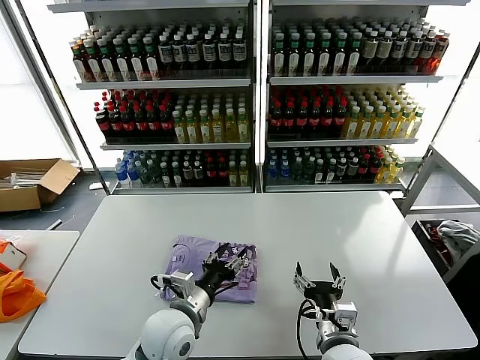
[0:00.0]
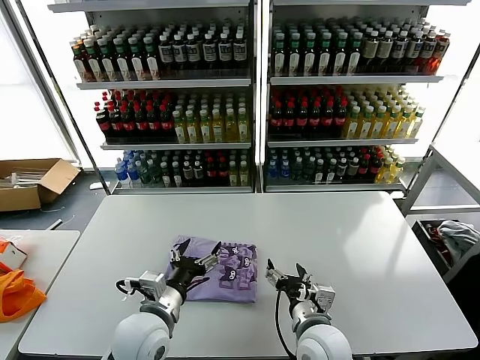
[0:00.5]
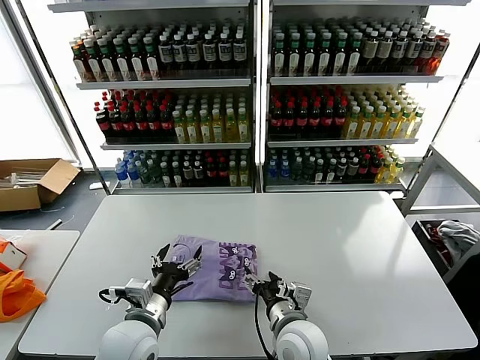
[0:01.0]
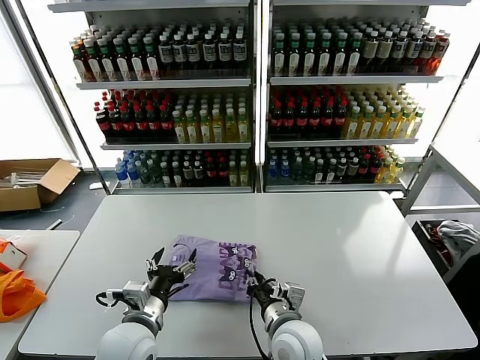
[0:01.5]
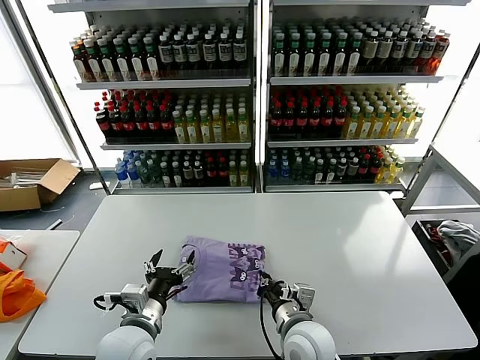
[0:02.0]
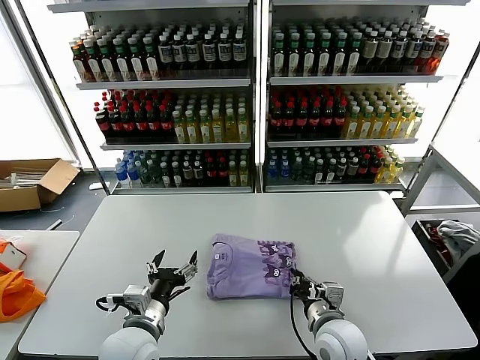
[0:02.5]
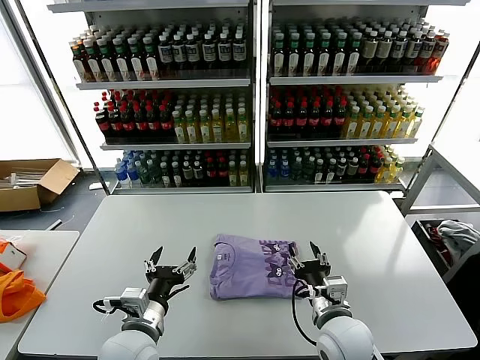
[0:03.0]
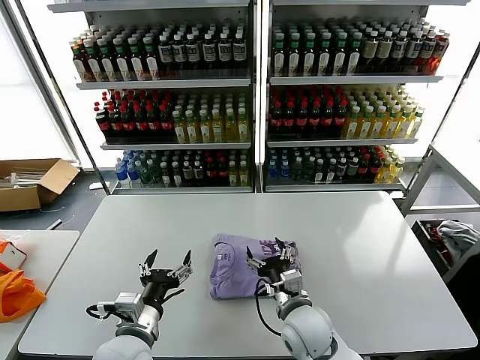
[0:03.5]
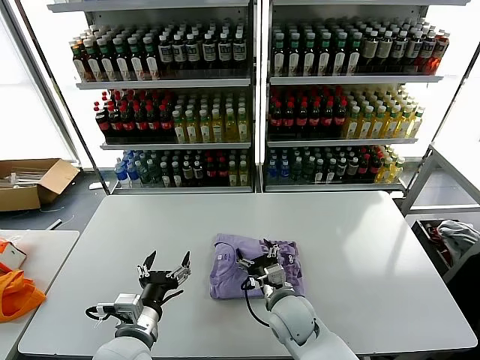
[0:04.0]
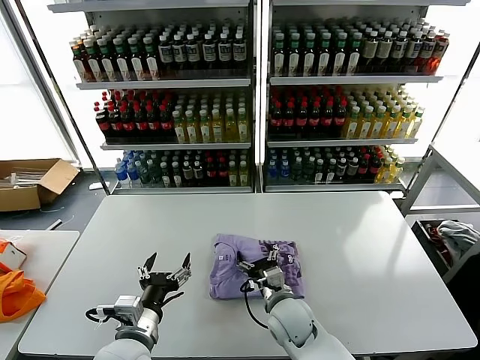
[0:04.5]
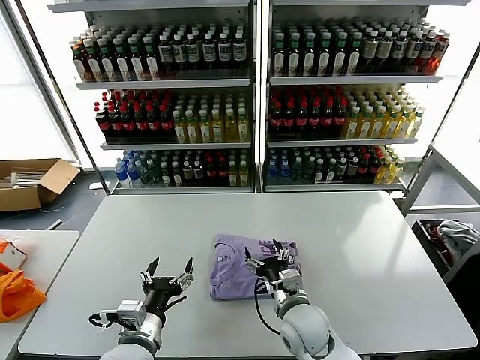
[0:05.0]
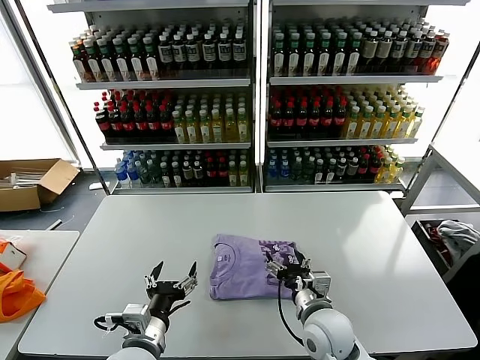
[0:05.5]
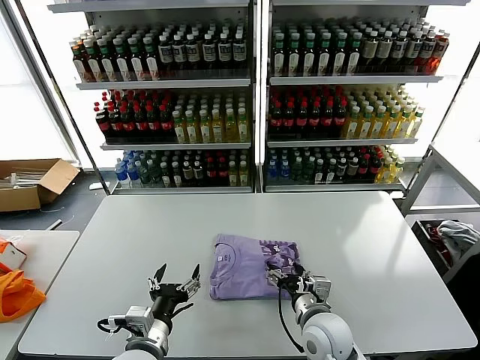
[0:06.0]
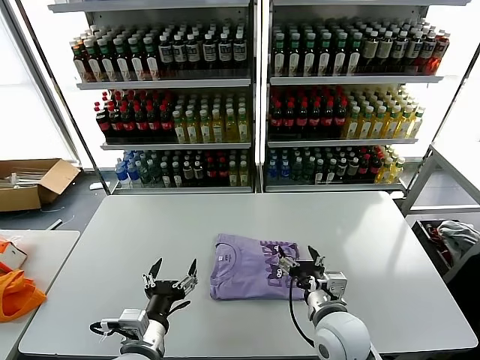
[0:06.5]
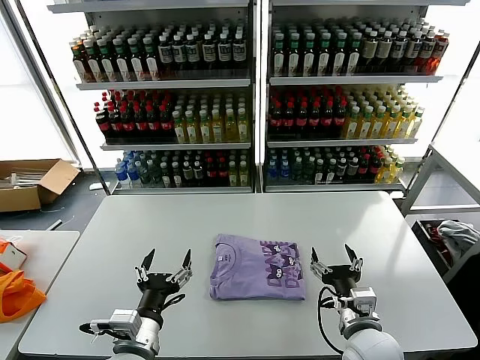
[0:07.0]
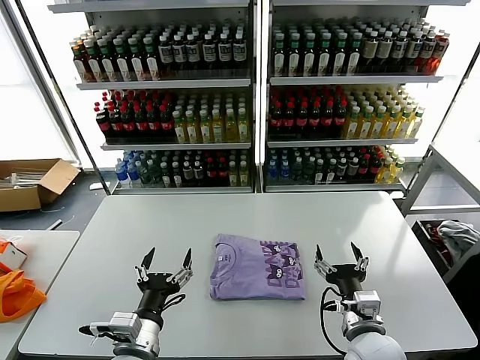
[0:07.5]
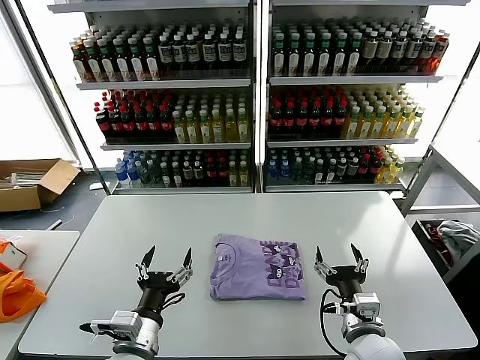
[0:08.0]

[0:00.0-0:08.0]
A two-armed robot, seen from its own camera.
Task of the whole recording: fold and organize the clothes.
Step, 0:00.0 to 0:04.5: Drag the clothes to the center of the table.
0:00.0 to 0:02.0: The grippers both shift to the left by approximately 5 cm. The right gripper closes up. The left gripper opens up.
0:02.0 to 0:04.0: The right gripper heads forward, covering some 5 cm, travels to the right and back again, about 5 cm each way, and opens.
0:04.0 to 0:06.0: The right gripper shifts some 5 cm to the right.
0:06.0 to 0:08.0: The right gripper goes about 10 cm to the right and backward.
